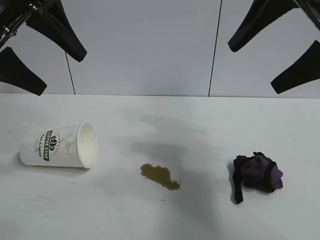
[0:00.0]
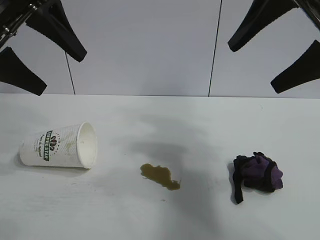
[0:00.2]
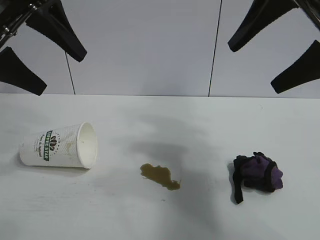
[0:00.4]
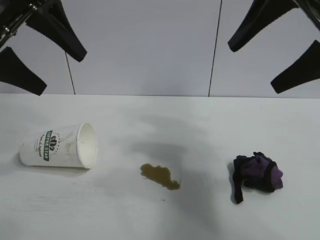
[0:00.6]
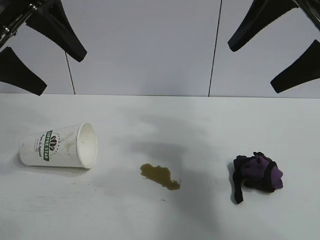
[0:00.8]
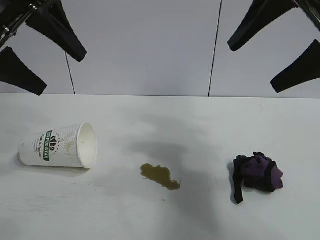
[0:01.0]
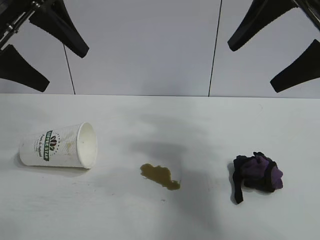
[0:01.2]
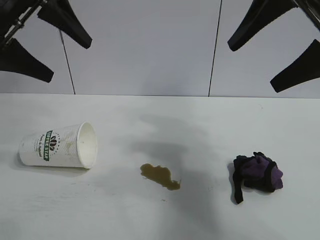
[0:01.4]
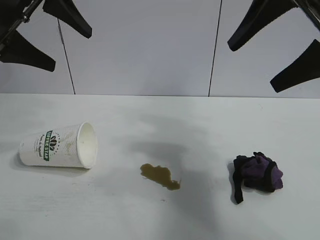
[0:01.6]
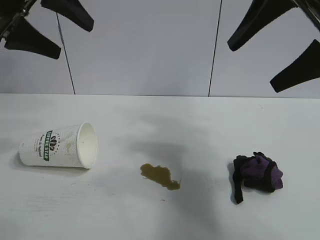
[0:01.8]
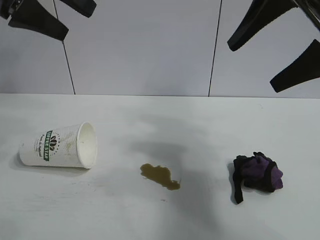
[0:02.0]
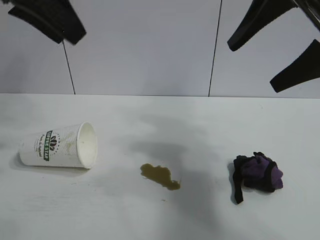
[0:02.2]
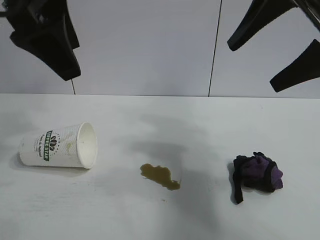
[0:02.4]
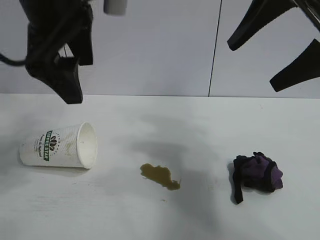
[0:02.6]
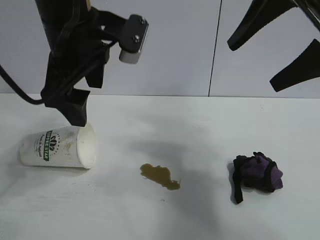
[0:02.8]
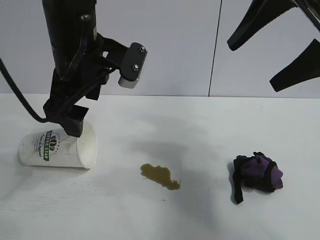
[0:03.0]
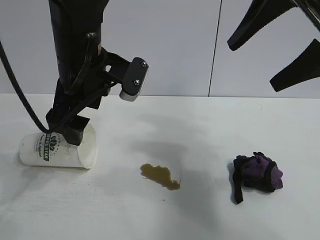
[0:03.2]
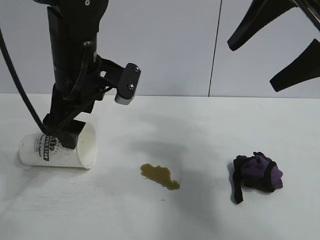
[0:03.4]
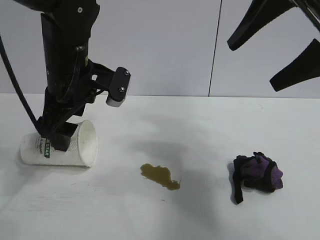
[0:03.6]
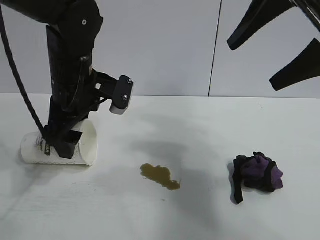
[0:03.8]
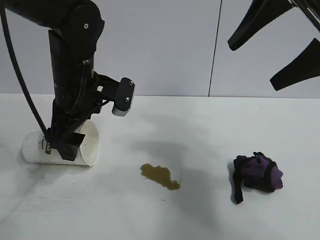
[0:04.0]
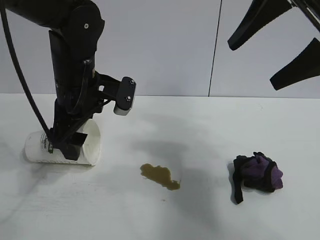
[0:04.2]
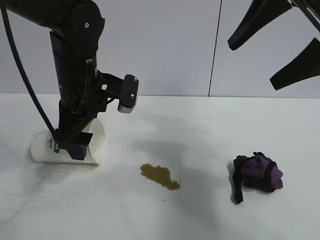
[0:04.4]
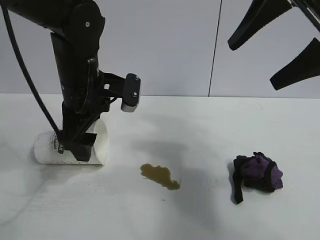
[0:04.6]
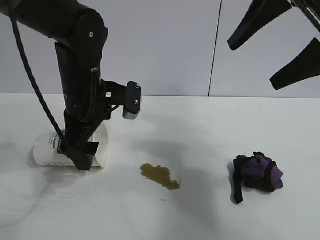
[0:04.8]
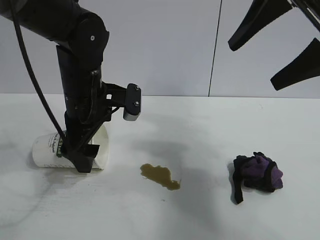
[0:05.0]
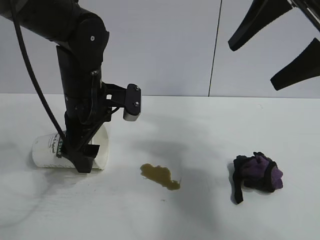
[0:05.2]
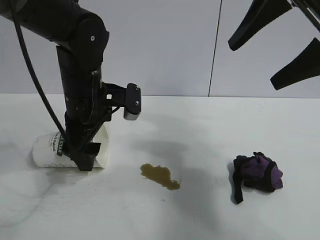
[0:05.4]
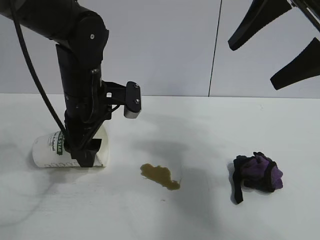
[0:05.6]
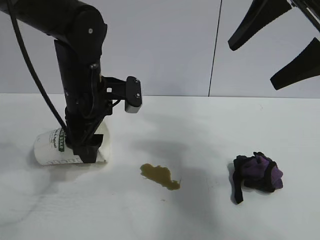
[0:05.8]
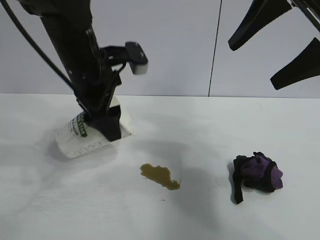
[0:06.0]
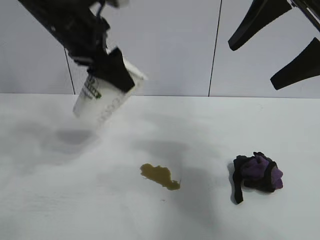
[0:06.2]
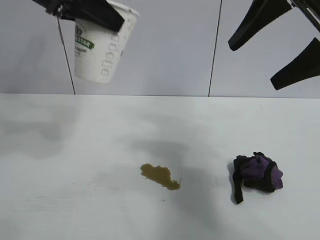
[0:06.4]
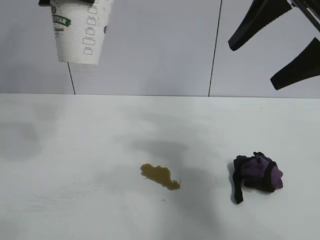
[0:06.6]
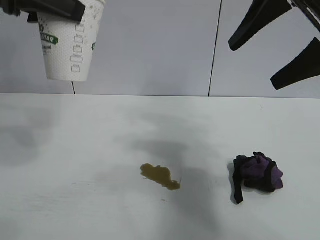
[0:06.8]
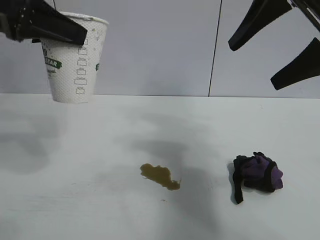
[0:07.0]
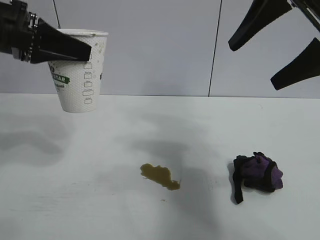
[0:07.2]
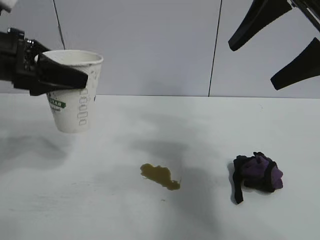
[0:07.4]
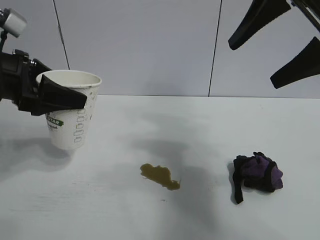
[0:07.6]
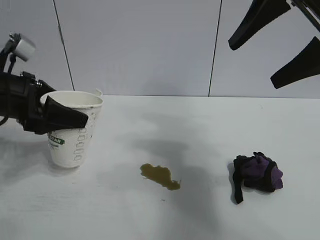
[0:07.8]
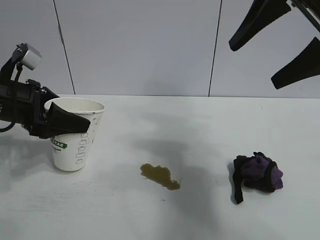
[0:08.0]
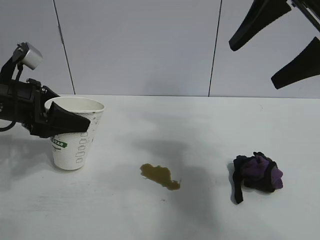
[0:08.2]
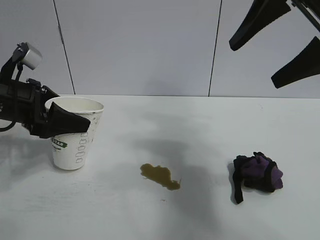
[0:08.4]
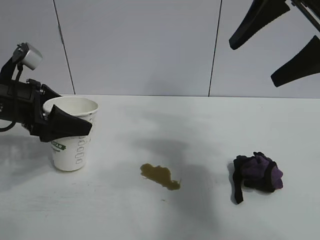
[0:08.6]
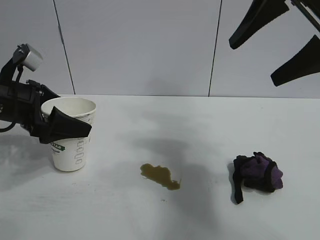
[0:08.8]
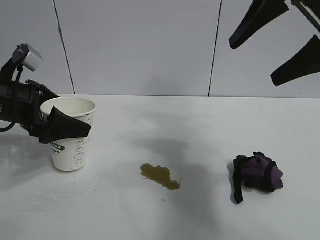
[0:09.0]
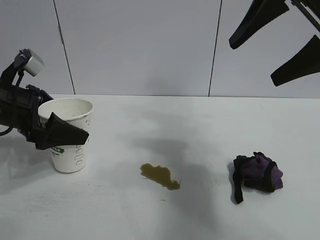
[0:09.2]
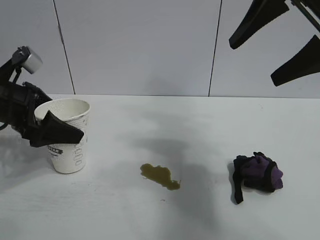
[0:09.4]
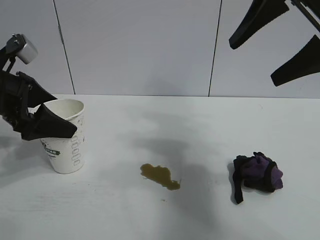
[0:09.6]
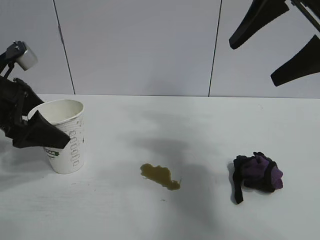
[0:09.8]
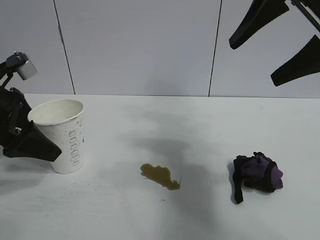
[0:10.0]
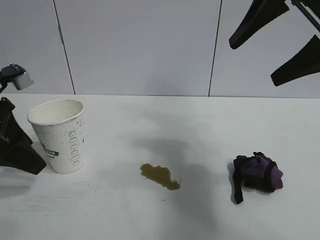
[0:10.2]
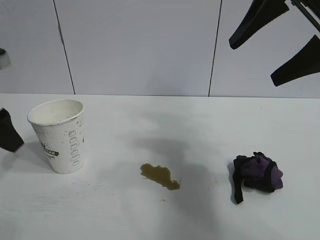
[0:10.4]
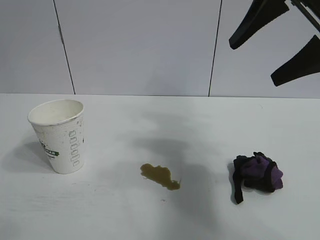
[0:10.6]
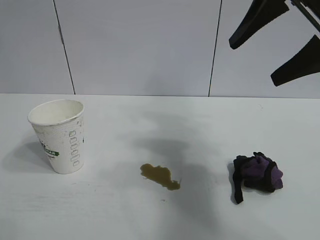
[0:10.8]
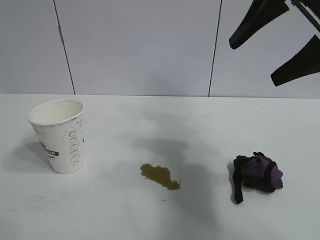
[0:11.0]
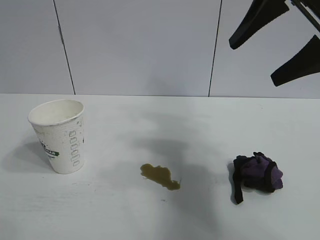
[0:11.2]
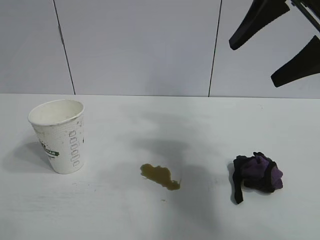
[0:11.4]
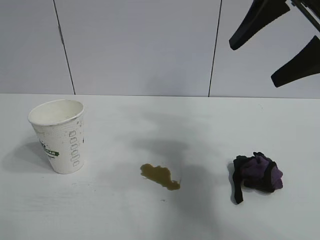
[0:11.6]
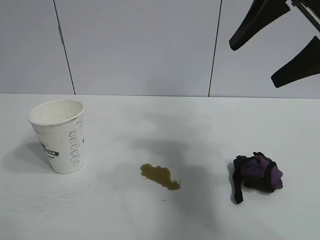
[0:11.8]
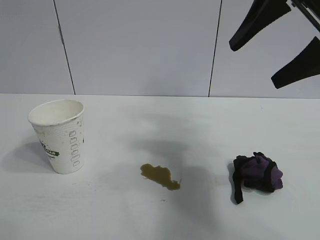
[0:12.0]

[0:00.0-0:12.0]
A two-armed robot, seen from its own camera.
Task of the whole recording: the left gripper pick up the fallen cup and place it upright, the right gripper grasp the black rag and wipe the stain on the table, the right gripper put the black rag back in its original position.
Step, 0:01.2 to 0:05.6: Grasp the paper cup with left gripper.
Step, 0:05.8 to 0:09.6: Stand the paper cup upright with left gripper.

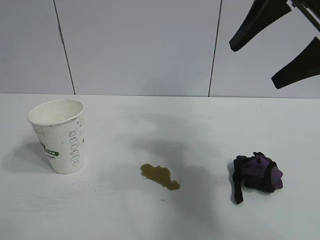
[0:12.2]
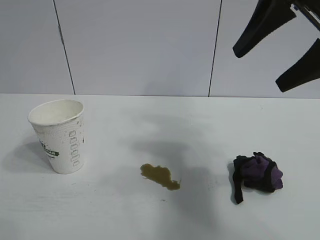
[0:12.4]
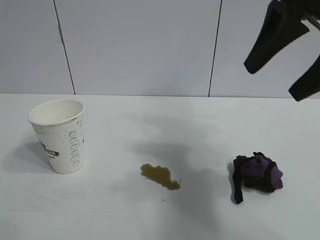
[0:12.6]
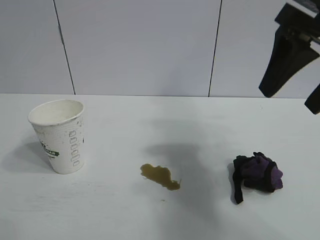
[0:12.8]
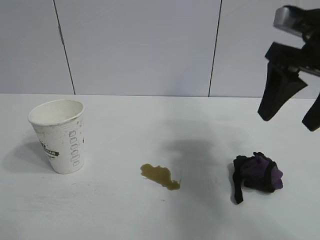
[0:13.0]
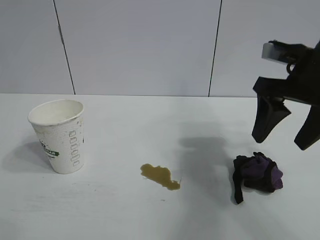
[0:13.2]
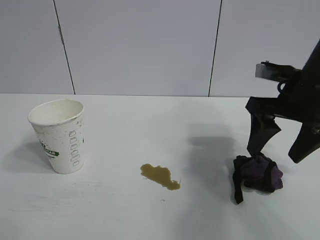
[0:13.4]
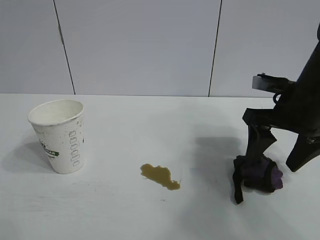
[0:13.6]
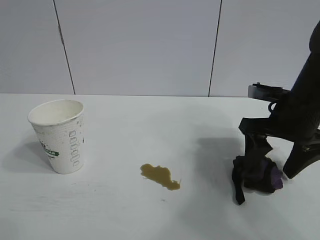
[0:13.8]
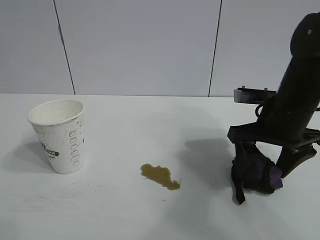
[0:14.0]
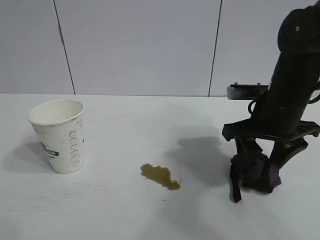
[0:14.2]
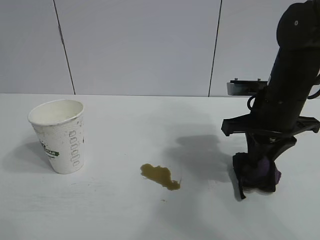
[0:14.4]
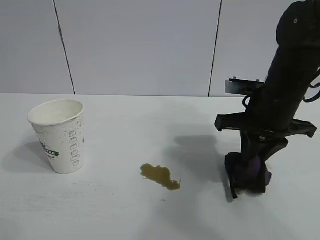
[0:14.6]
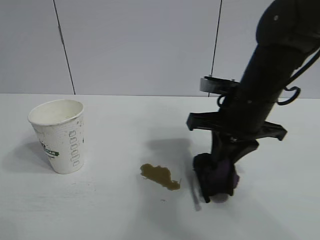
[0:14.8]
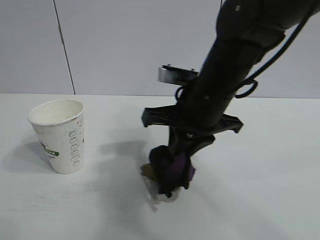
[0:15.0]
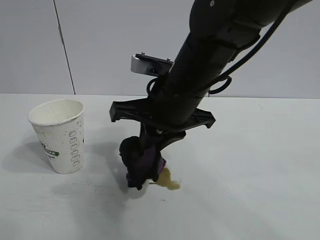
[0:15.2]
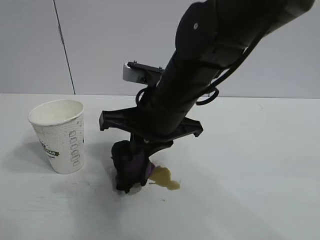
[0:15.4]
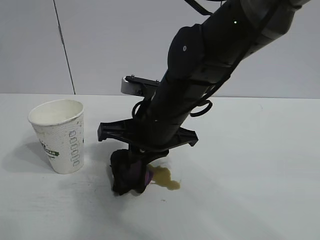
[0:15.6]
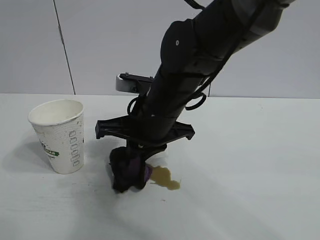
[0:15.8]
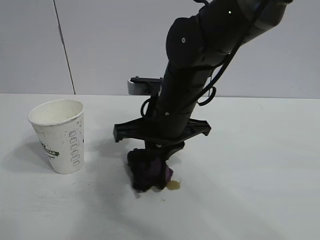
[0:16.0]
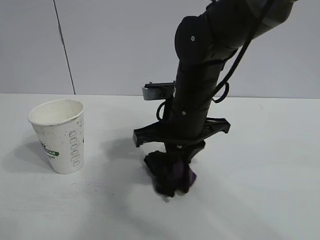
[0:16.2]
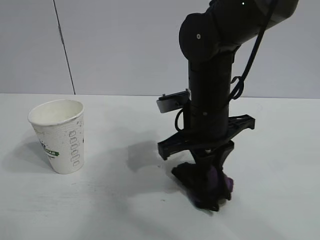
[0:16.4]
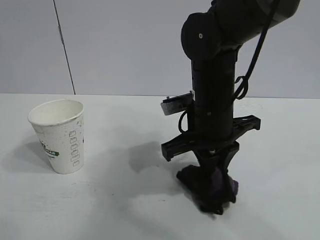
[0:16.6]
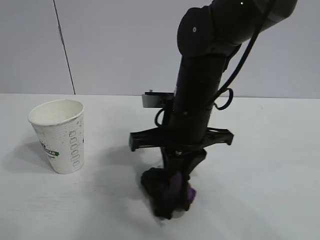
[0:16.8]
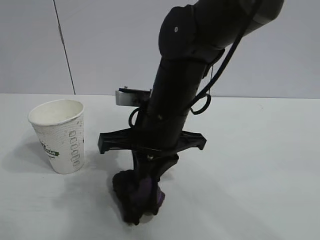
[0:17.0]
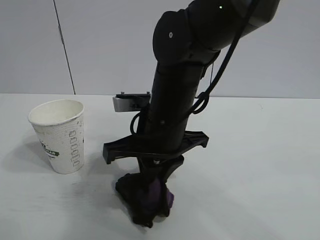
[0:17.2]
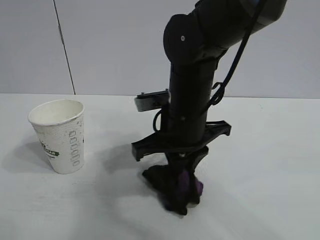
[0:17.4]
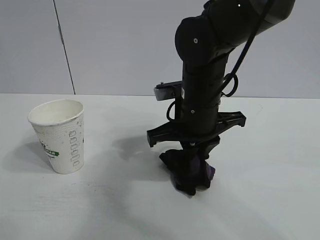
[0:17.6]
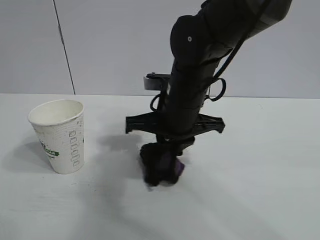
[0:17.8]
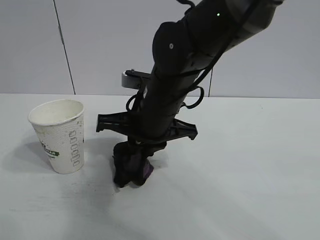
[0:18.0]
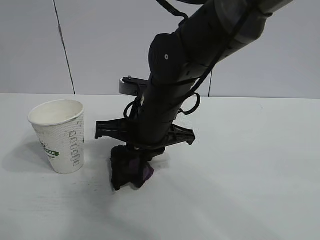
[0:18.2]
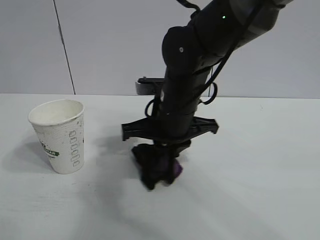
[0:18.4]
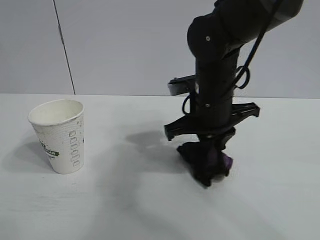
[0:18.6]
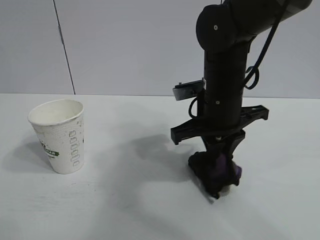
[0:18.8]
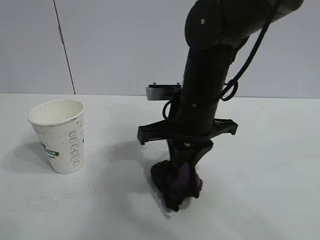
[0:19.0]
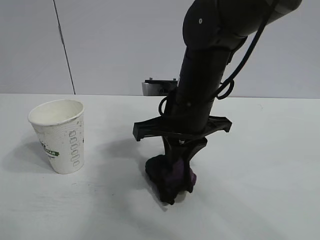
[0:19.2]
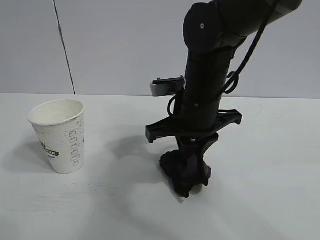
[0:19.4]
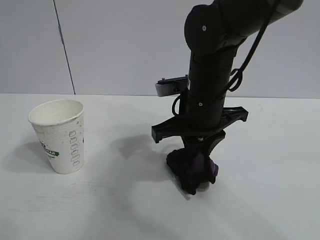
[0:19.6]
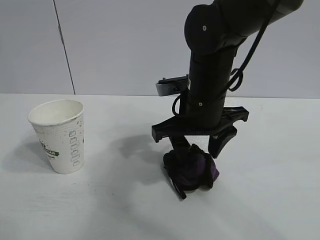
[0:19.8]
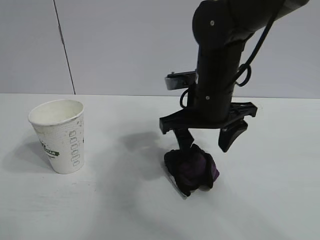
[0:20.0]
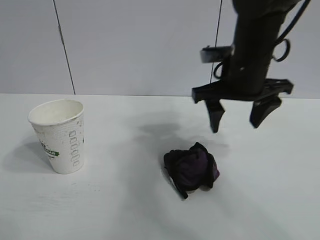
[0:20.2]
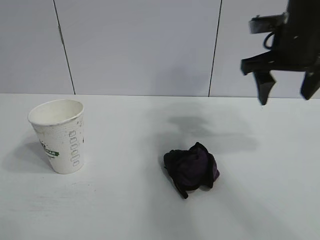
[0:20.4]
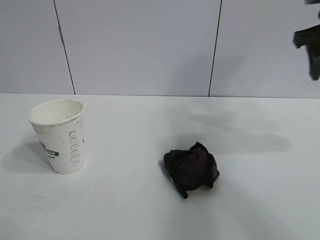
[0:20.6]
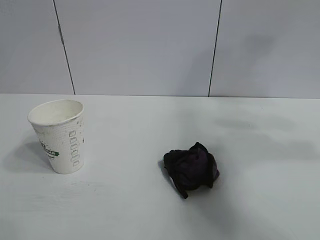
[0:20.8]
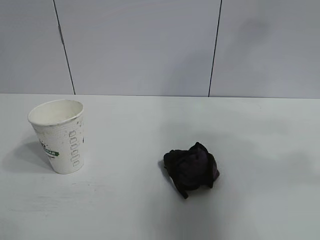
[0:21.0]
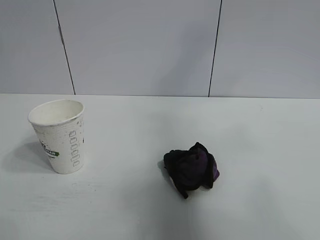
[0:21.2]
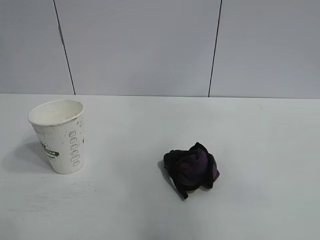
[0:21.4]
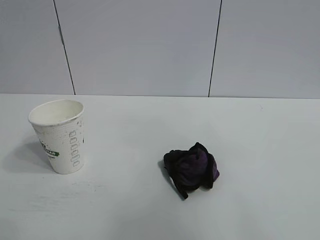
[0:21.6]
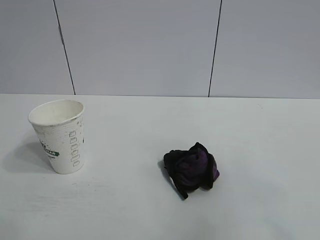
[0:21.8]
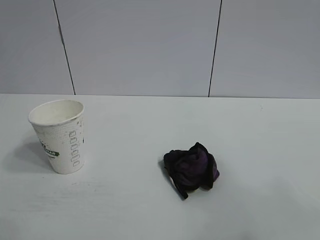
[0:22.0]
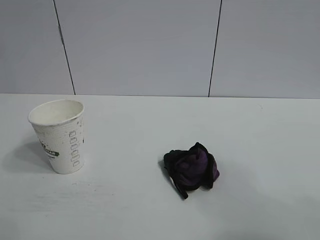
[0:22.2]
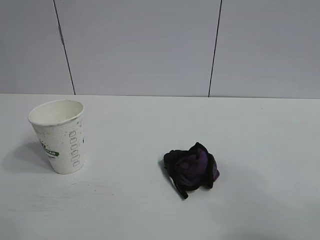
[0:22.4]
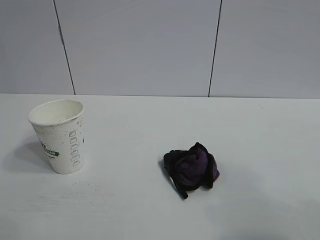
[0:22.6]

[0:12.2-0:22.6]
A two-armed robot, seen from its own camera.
Task of the whole recording: the left gripper pick up the fallen cup and place it upright, the right gripper grasp the black rag and wipe the stain on the table, the right gripper put the black rag back in its original position.
Step, 0:12.2 to 0:14.4: Grasp the rag with right gripper.
Step, 0:14.6 to 0:19.4: Wipe the stains off the table with the rag with right gripper.
